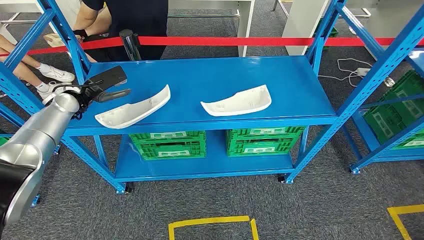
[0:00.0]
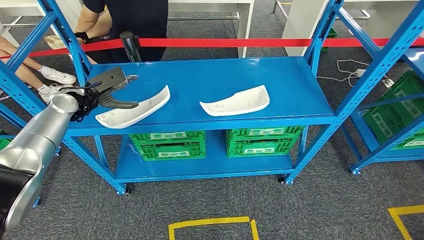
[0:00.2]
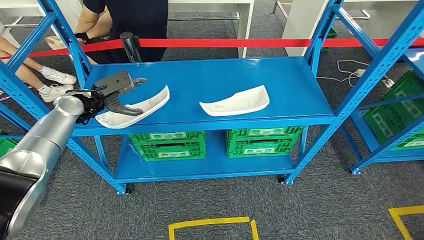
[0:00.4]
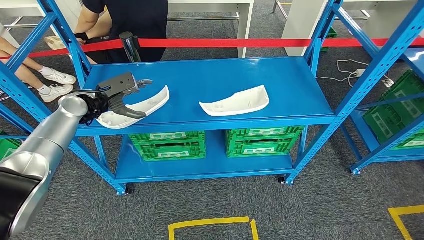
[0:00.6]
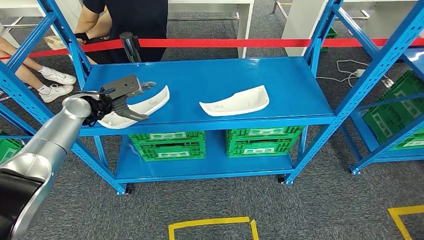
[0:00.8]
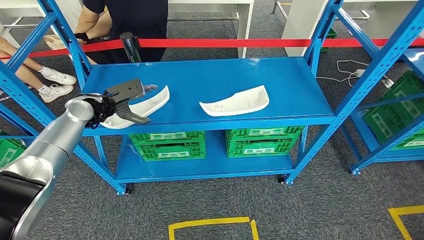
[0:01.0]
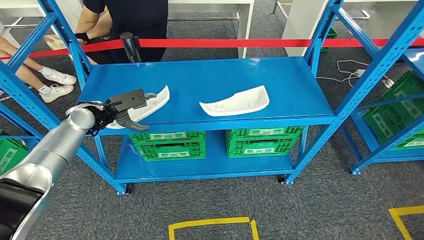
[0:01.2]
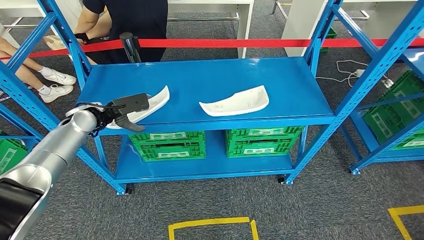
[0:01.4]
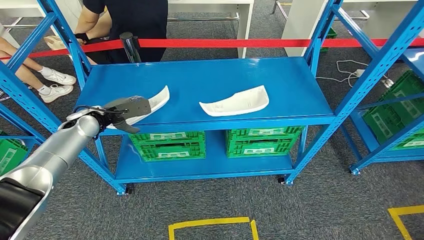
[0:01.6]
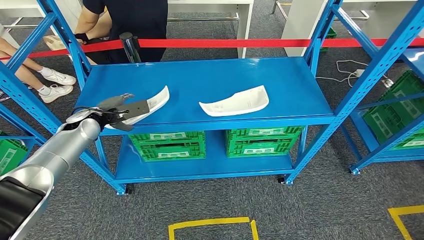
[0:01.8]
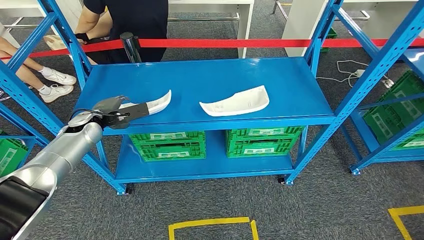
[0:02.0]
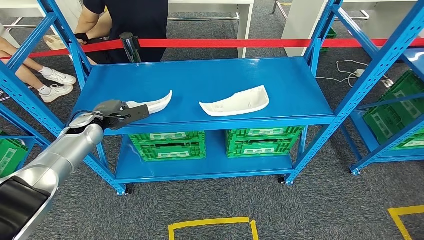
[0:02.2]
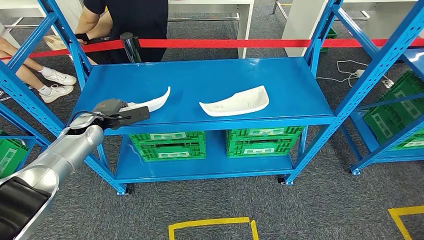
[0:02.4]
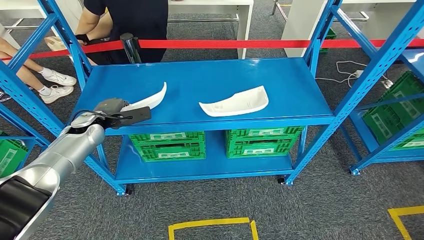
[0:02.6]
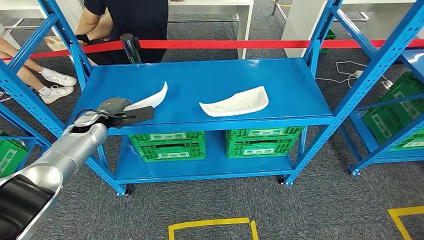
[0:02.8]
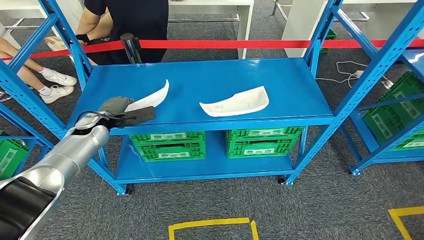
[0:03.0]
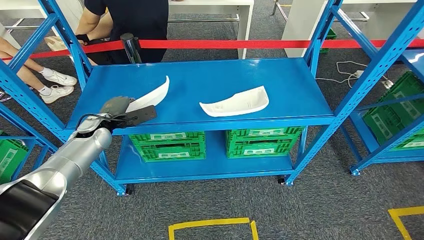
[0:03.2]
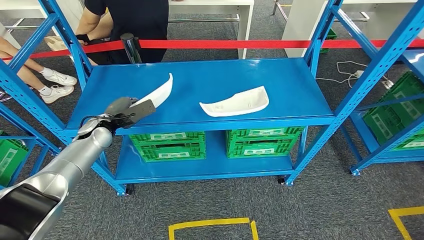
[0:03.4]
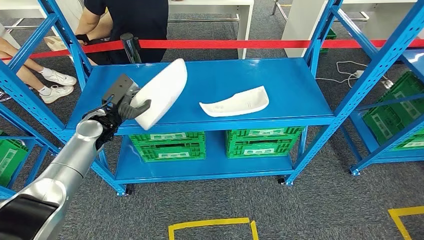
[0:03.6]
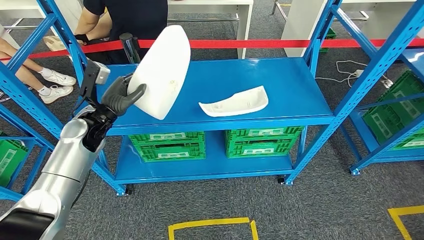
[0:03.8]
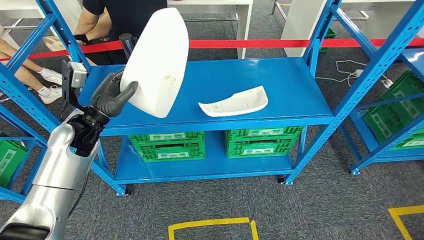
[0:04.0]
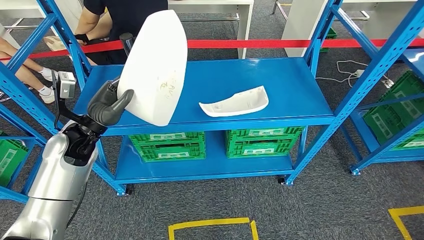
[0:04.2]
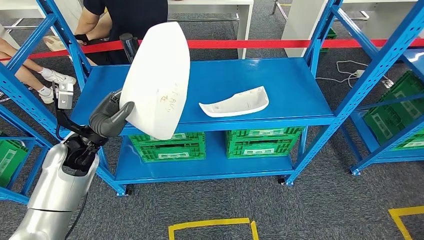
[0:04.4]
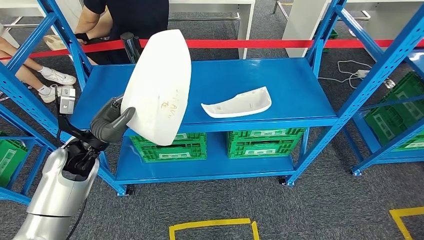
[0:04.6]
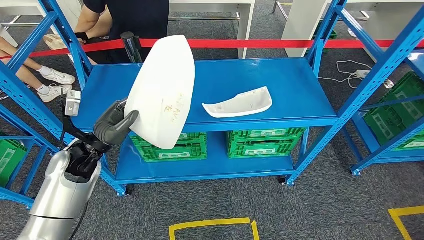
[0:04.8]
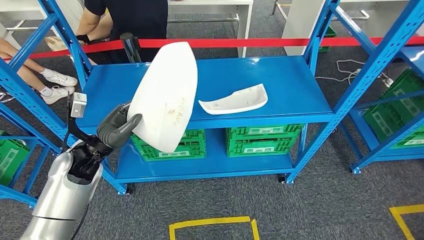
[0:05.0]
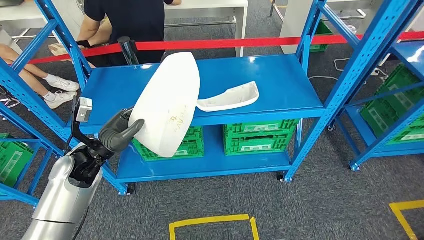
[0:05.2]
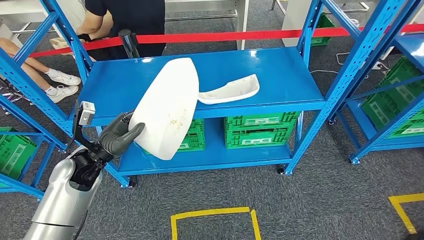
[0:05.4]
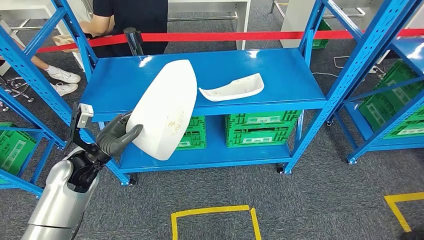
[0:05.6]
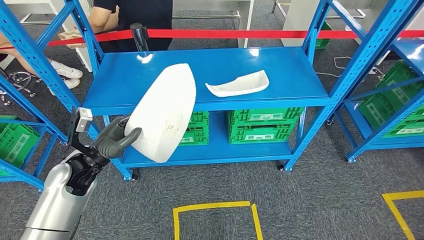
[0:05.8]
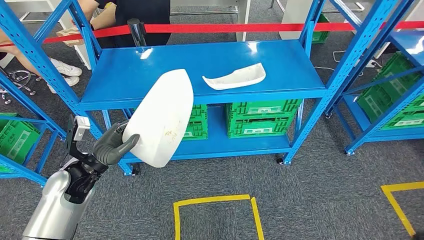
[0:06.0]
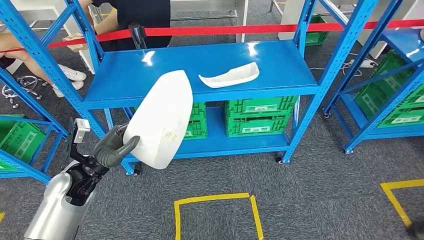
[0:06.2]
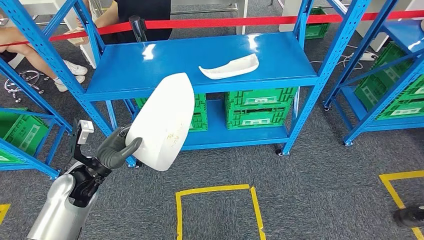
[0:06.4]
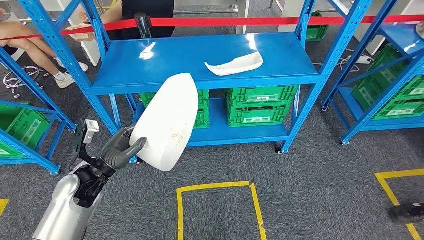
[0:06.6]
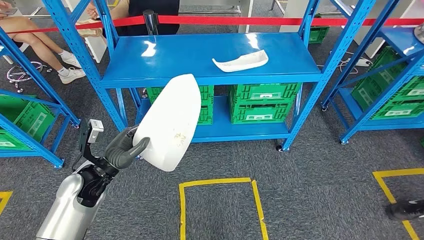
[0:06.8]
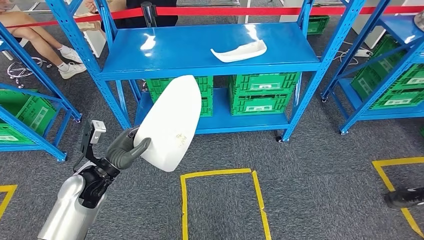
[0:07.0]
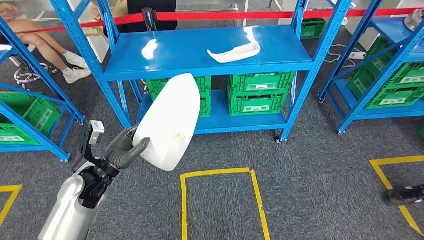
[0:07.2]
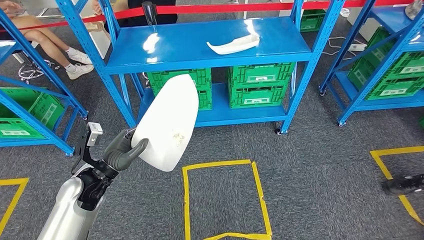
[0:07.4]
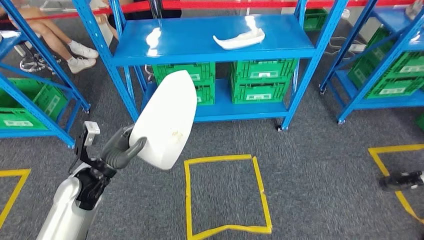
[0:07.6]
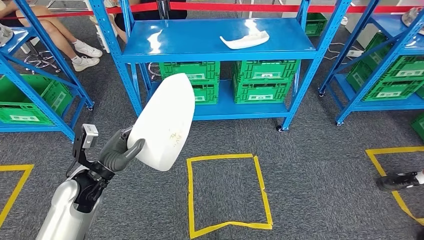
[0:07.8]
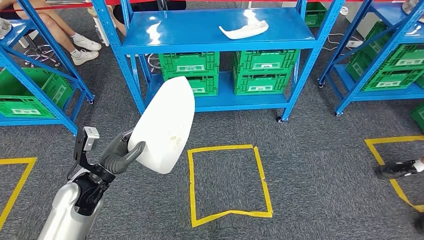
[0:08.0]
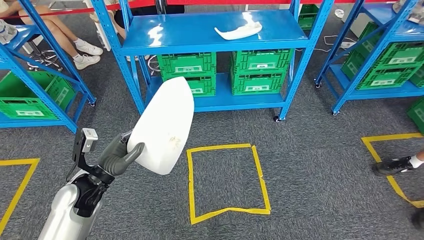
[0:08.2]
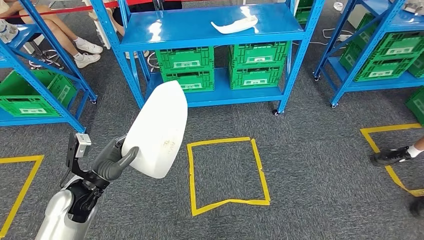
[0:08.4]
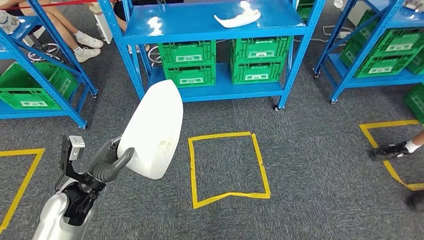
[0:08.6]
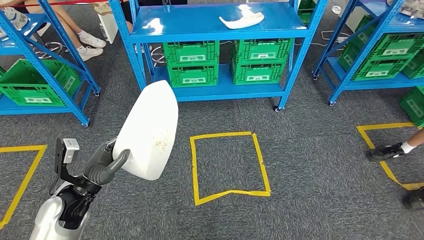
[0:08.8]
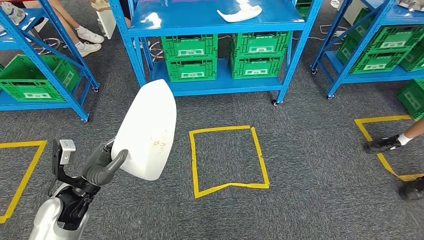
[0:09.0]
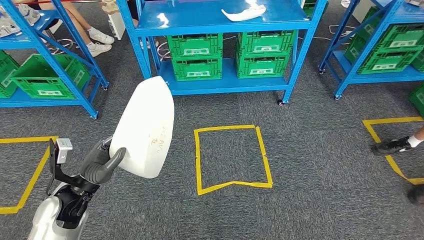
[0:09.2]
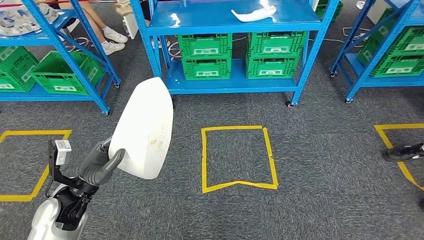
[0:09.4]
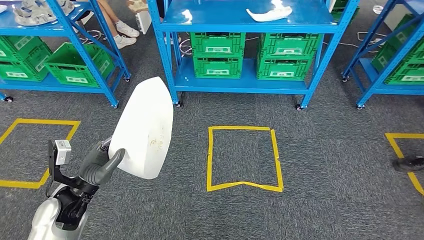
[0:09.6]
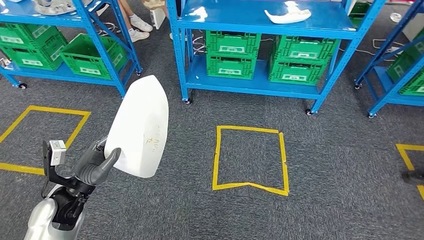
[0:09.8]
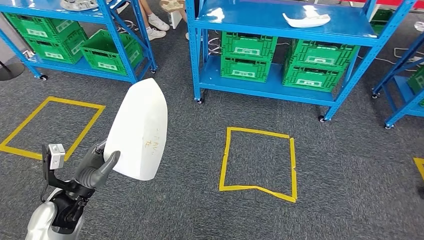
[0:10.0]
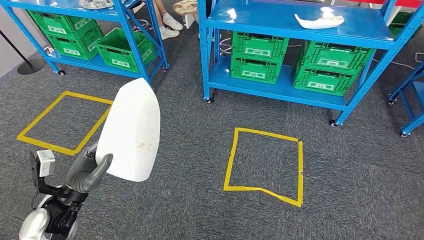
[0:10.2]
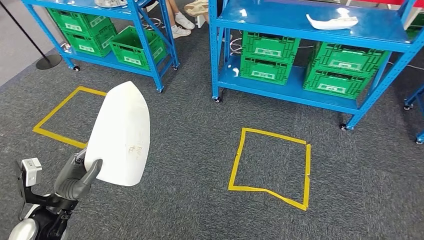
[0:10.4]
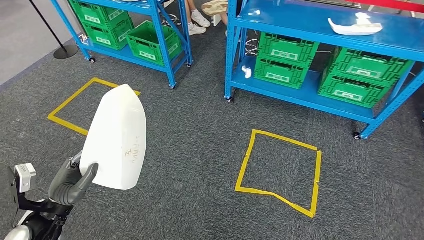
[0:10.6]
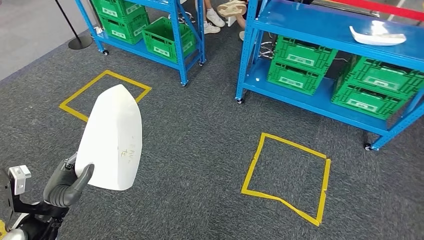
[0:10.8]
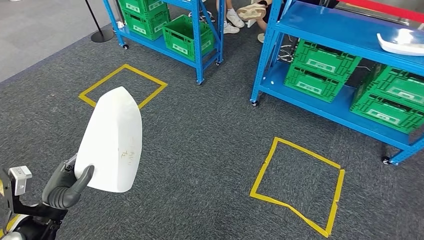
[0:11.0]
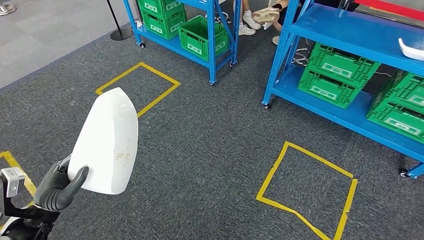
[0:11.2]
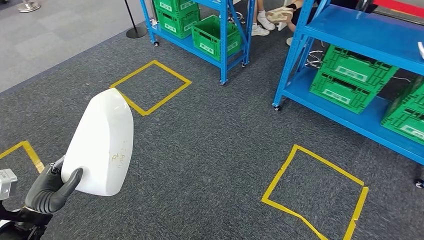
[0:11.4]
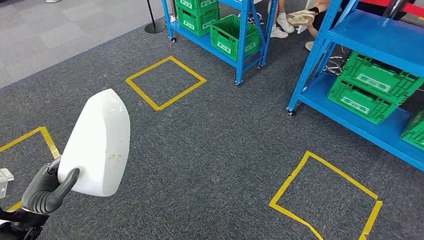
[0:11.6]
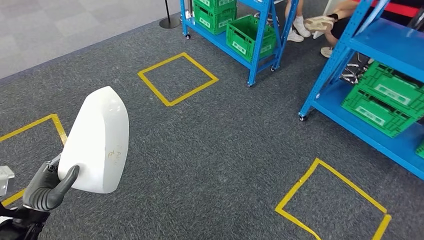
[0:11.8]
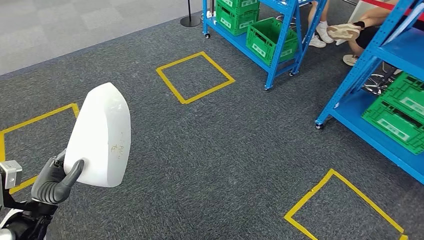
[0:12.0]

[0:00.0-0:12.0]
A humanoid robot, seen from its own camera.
Step, 0:00.0 to 0:04.4: Pick up the small component from the shelf.
0:03.0 to 0:04.4: The left hand is displaced backward by roughly 10 cm.

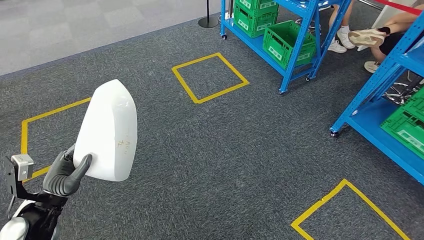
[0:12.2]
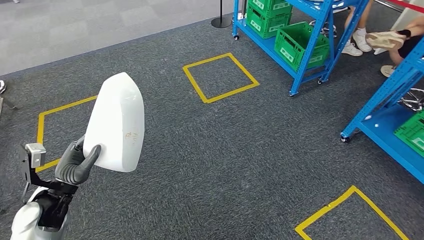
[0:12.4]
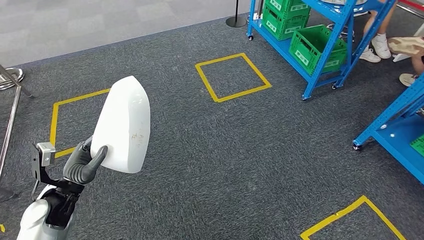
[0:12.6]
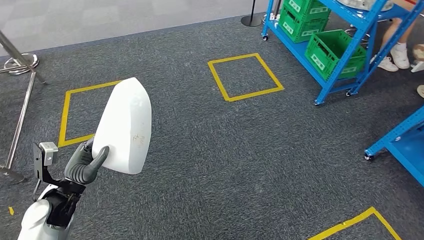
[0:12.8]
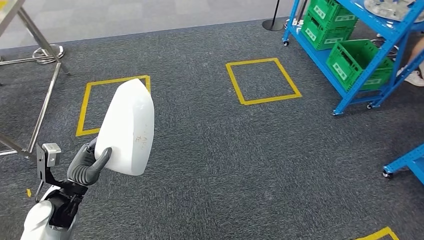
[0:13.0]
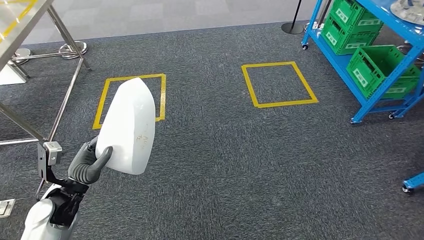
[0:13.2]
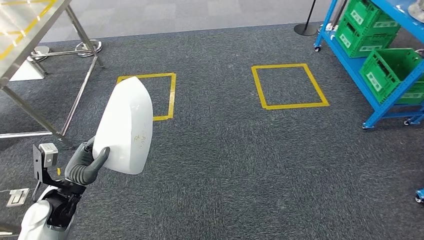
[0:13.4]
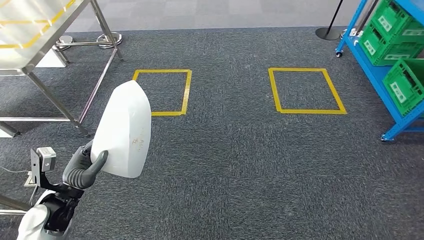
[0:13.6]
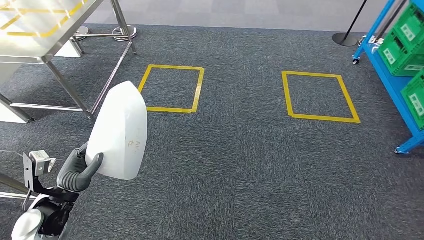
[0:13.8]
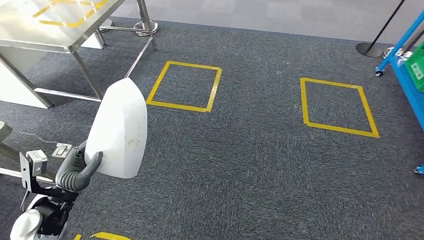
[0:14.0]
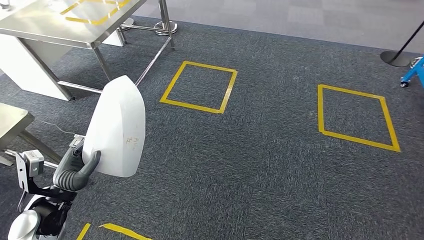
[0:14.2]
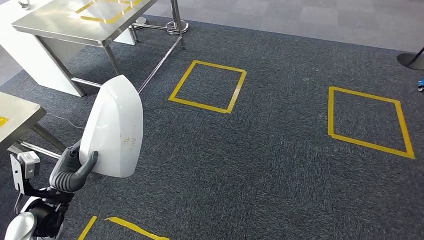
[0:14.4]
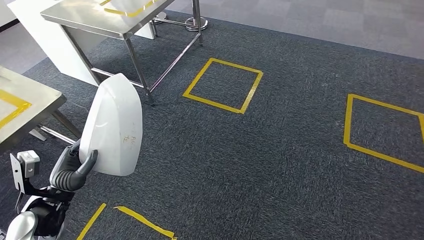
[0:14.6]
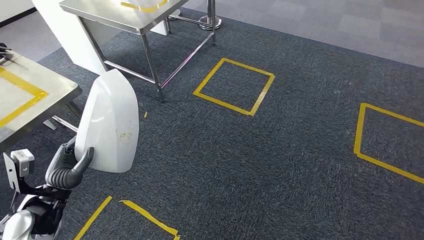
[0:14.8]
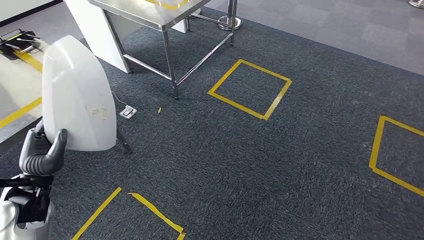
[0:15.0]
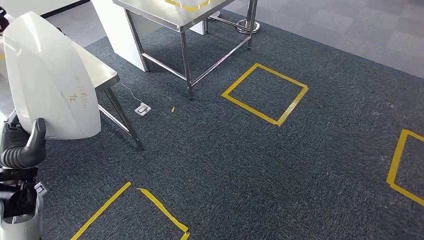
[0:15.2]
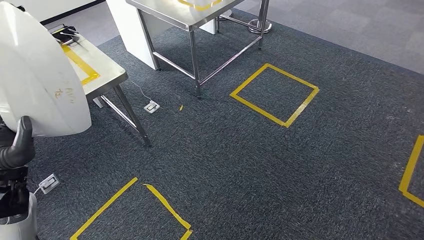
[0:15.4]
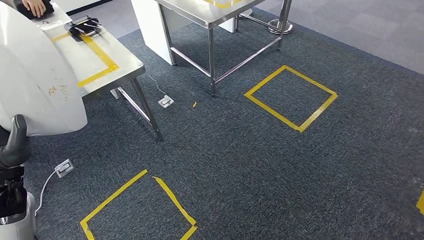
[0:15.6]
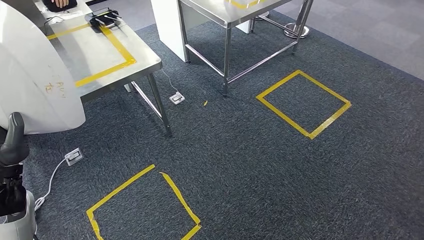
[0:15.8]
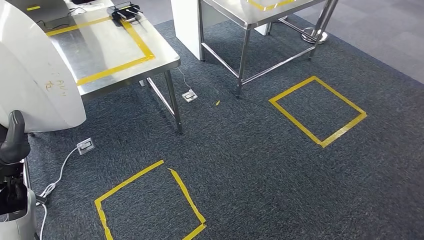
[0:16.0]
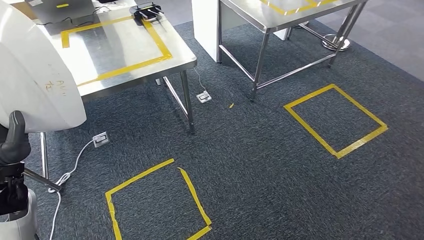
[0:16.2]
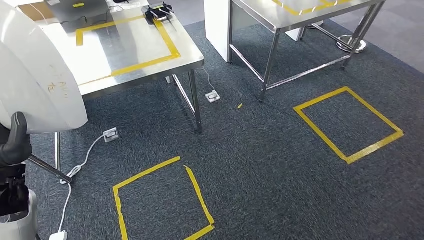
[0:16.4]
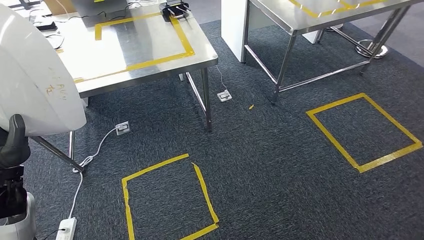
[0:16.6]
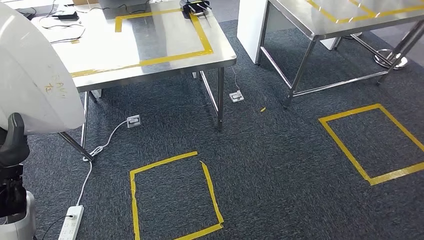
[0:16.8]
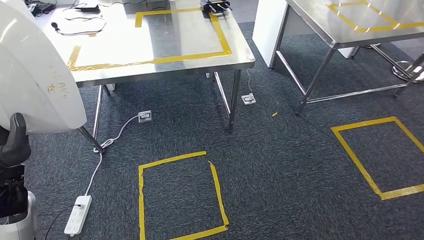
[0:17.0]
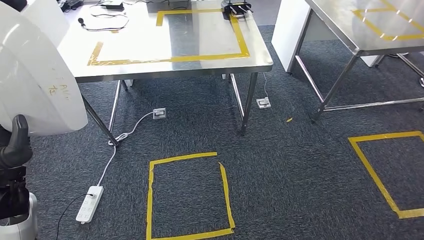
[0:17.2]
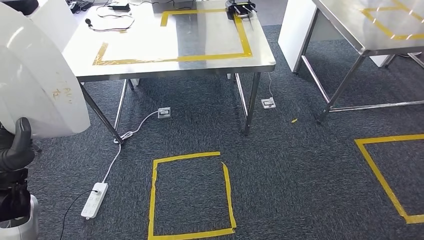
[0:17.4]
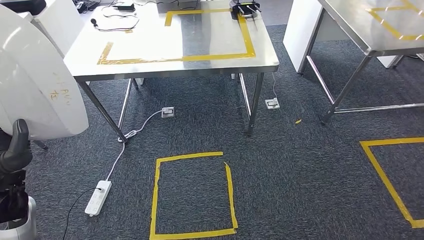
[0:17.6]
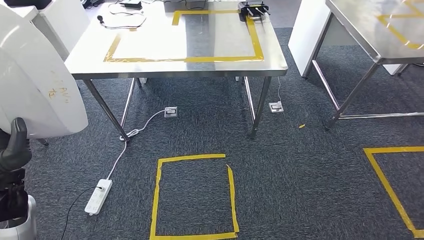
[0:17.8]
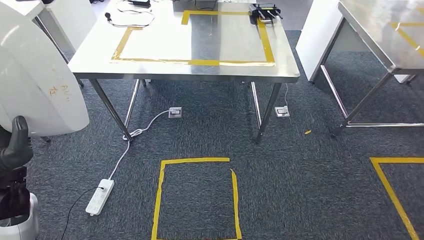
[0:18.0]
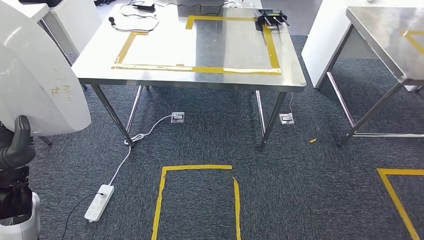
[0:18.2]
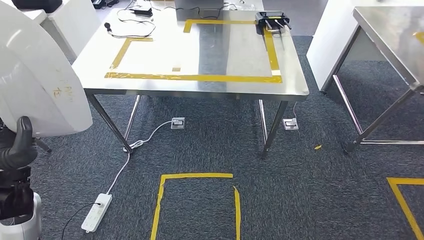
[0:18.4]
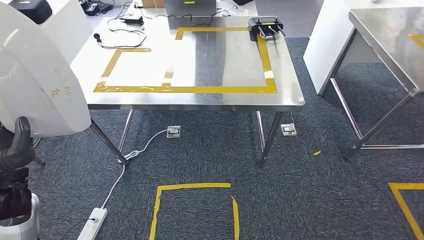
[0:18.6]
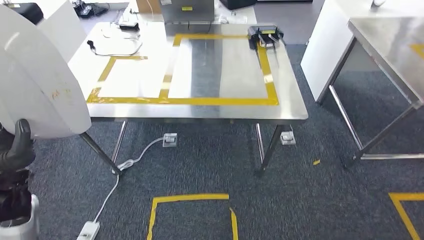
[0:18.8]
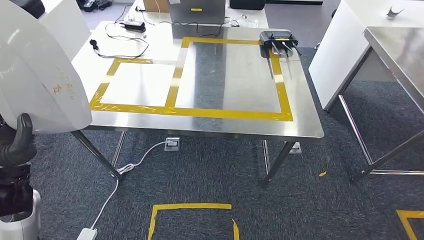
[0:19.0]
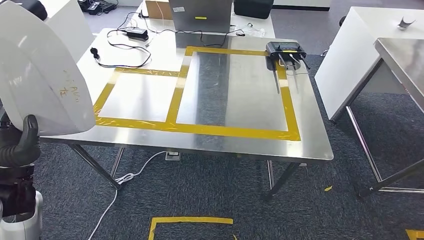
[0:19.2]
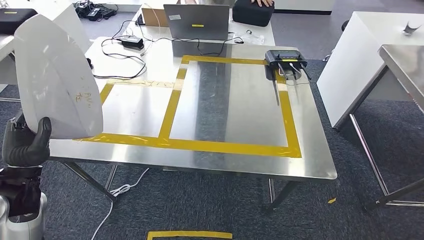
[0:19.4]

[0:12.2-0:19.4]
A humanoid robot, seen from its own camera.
Step, 0:12.2 to 0:19.2: Move the small component to the workbench.
